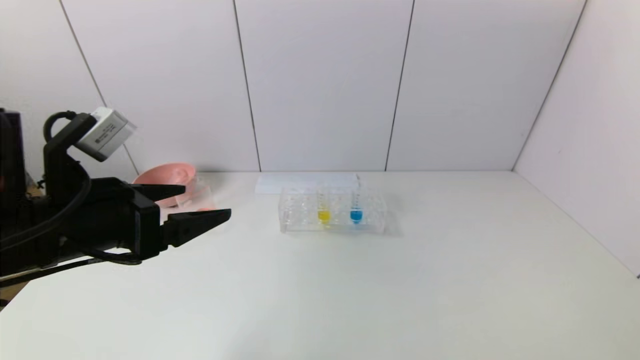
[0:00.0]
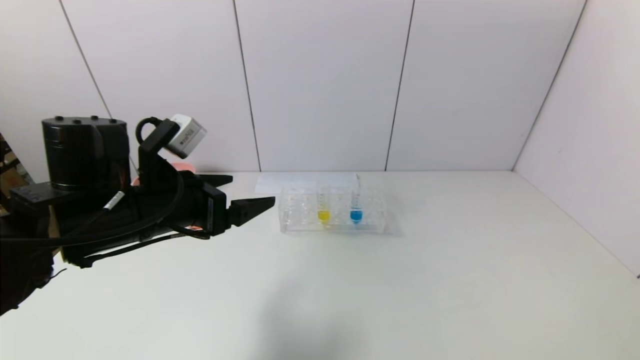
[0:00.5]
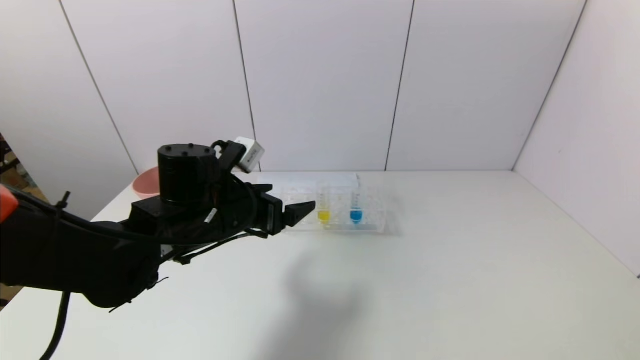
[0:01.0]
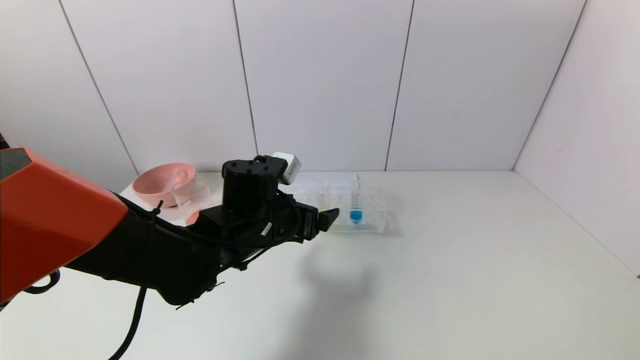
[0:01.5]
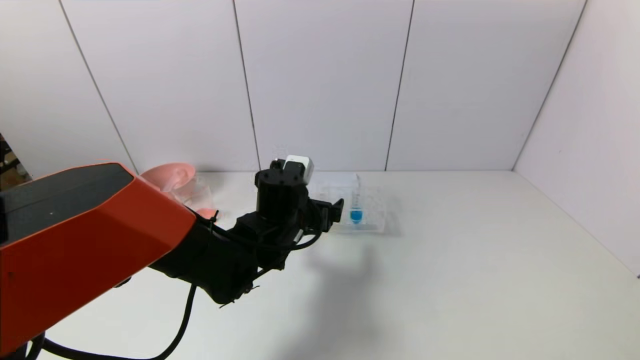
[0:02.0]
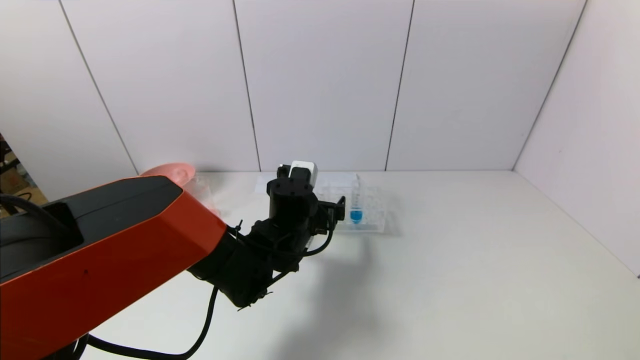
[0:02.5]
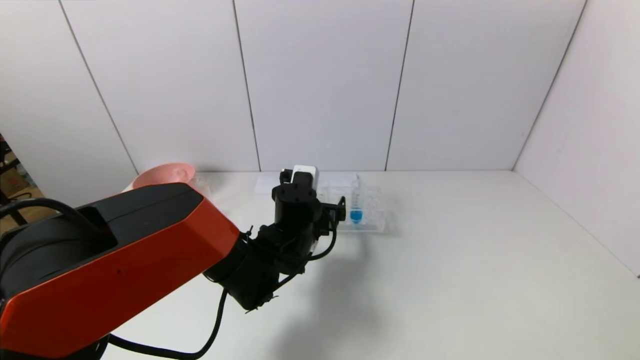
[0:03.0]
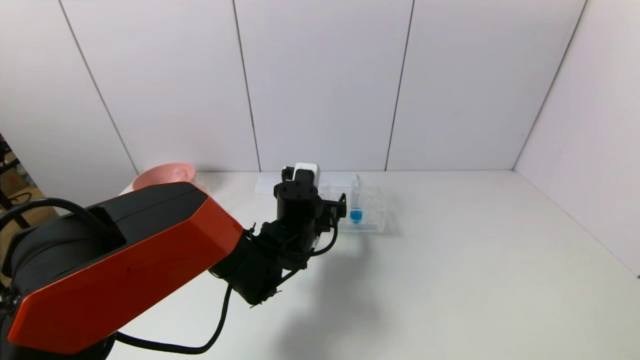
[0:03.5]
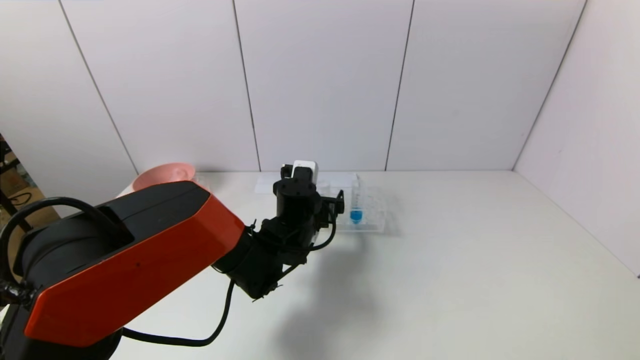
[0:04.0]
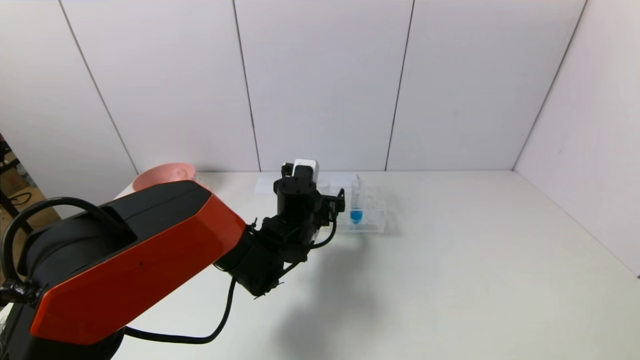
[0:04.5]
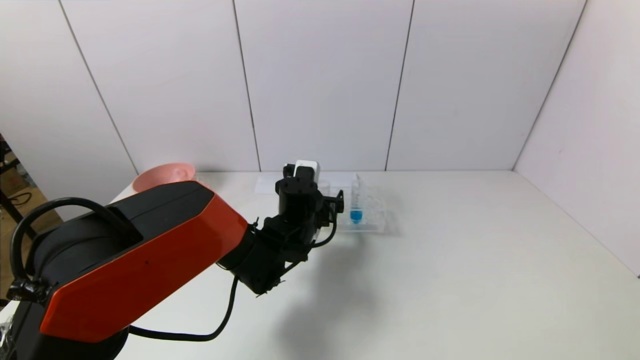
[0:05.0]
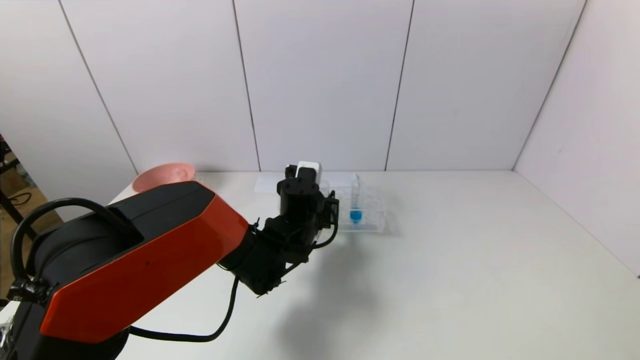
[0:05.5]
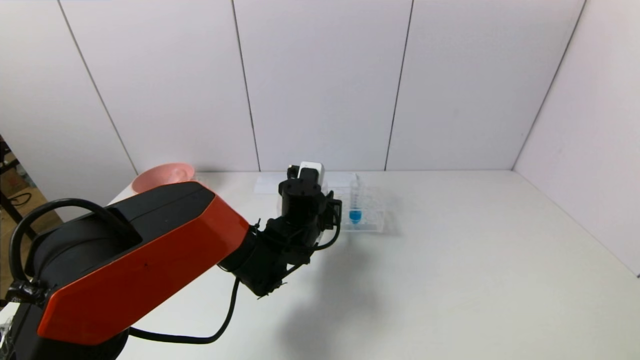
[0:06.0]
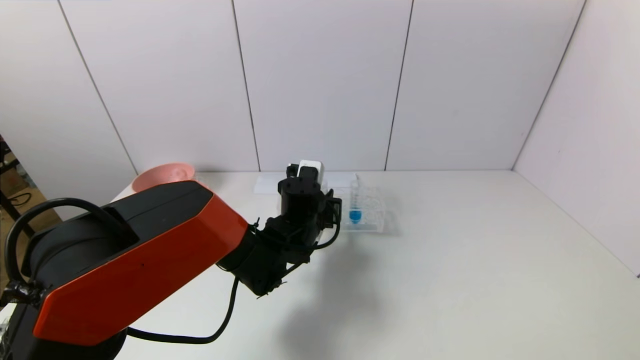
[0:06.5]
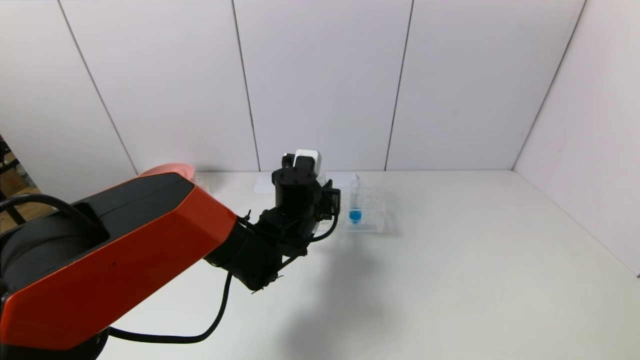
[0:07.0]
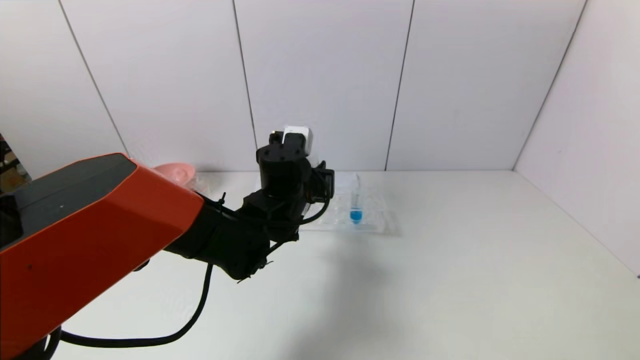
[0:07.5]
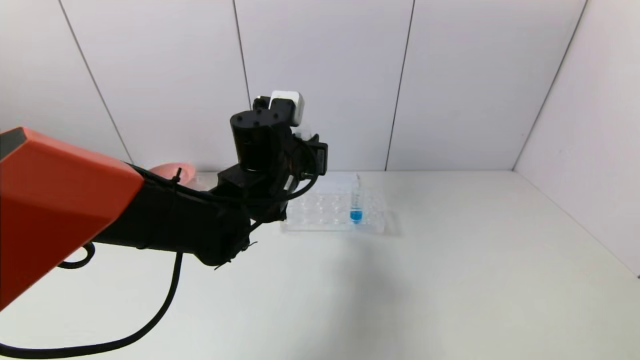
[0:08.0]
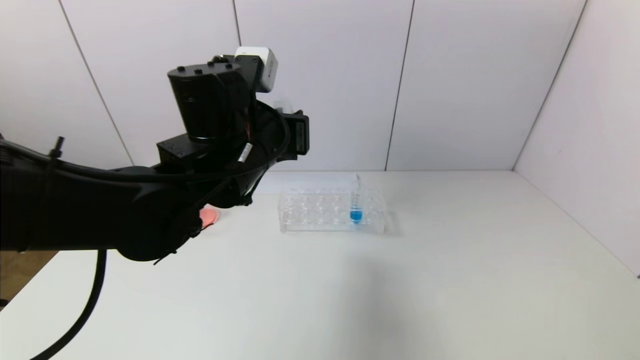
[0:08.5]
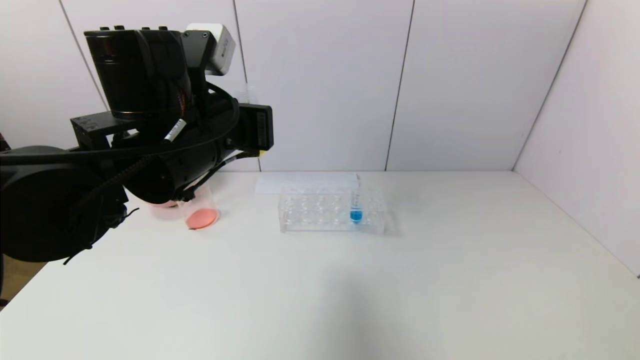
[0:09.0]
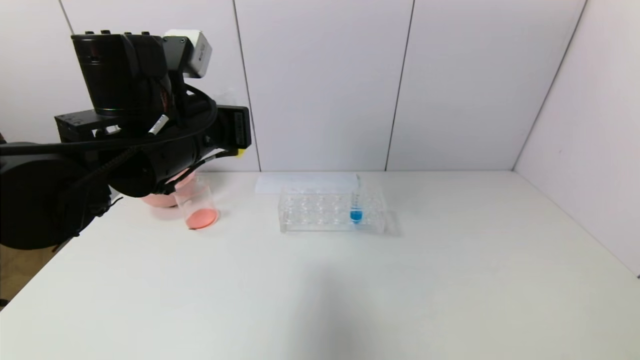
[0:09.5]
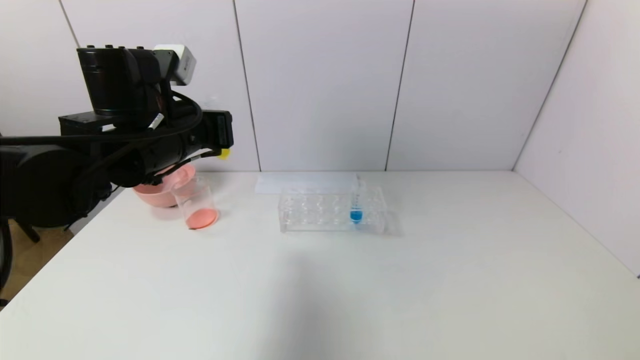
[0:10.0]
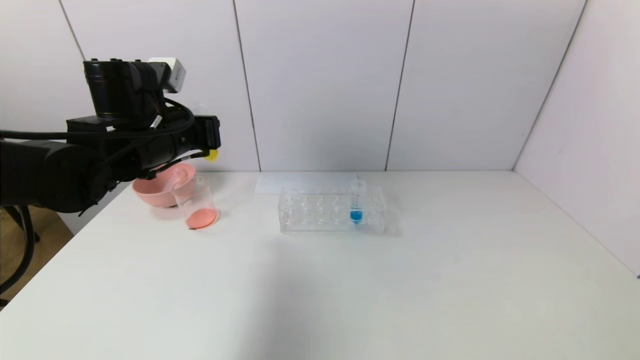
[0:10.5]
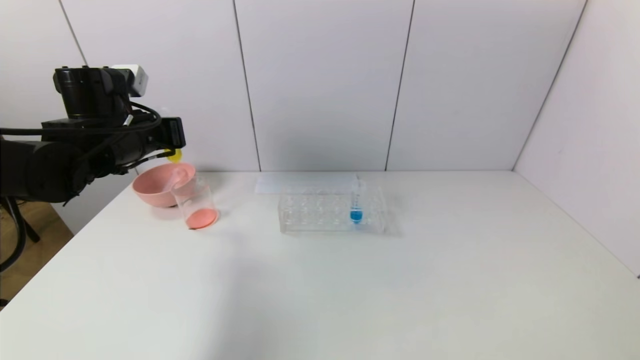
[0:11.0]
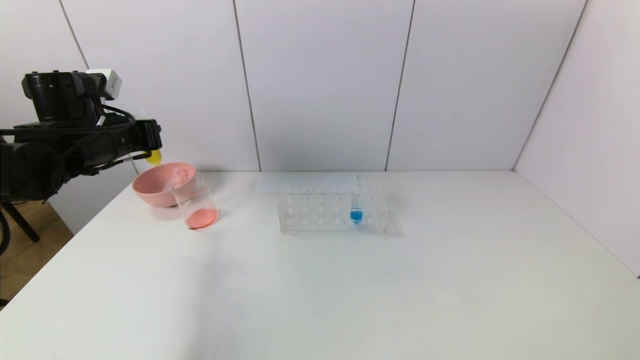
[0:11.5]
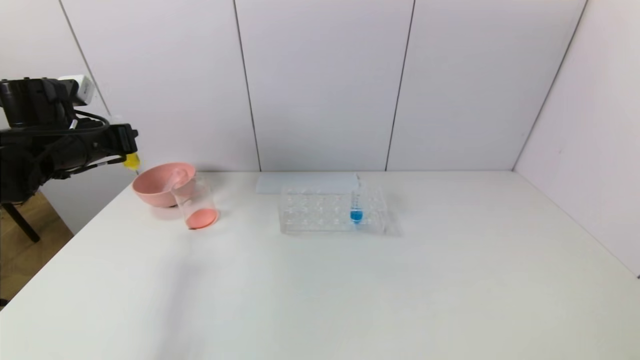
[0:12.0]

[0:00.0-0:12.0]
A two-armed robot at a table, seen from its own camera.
Task of the whole recording: pick up the test tube with yellow pigment and the test tube with red pigment by grippers and pour them into the beaker.
Step, 0:00.0 to 0:05.5: Grasp the yellow reagent with the left gripper.
0:00.0 to 0:02.0: The left gripper goes about 25 cm to the right, forward and downward.
0:02.0 to 0:04.0: The left gripper changes place by roughly 5 cm.
0:04.0 to 0:06.0: The left gripper closes.
0:06.0 to 0:08.0: The left gripper is displaced upward by some 15 cm.
0:08.0 to 0:10.0: The left gripper shifts some 15 cm to the left and upward.
0:10.0 to 0:12.0: The left gripper is displaced to the left by some 20 cm.

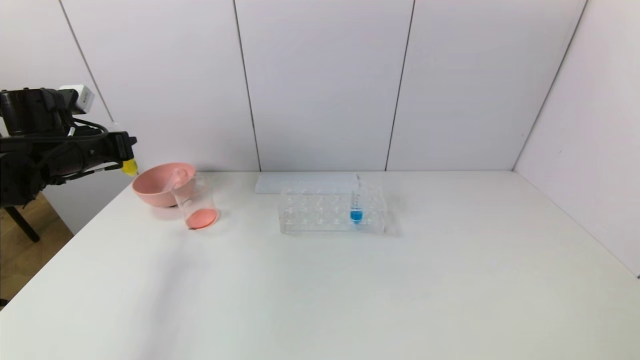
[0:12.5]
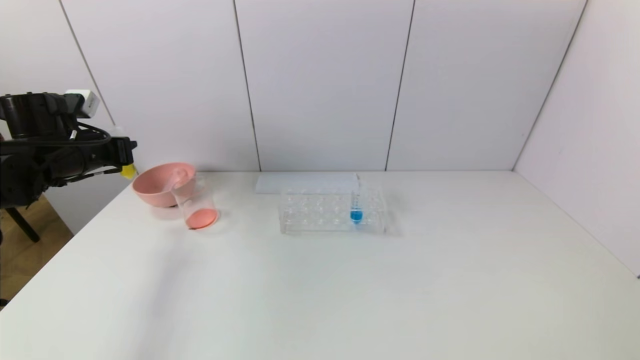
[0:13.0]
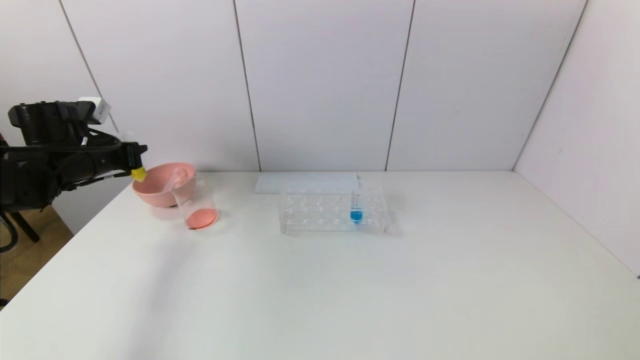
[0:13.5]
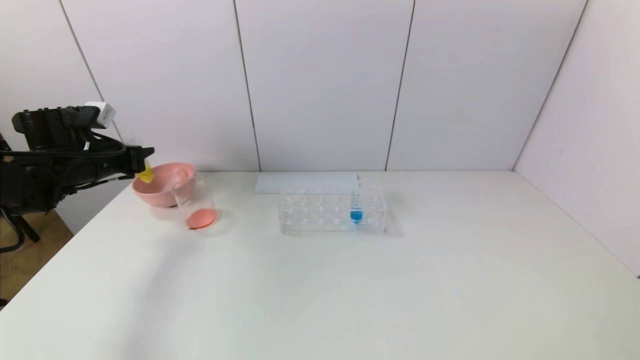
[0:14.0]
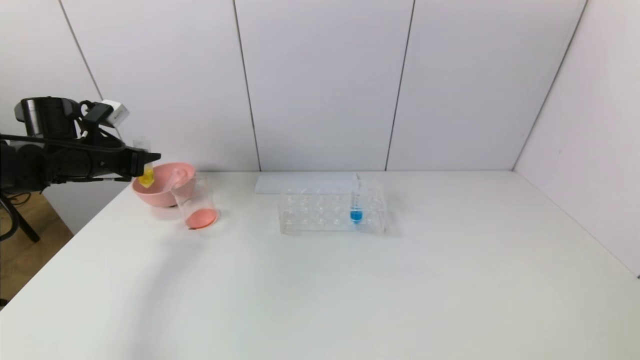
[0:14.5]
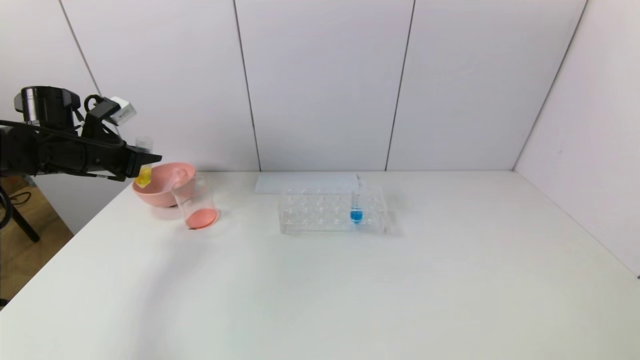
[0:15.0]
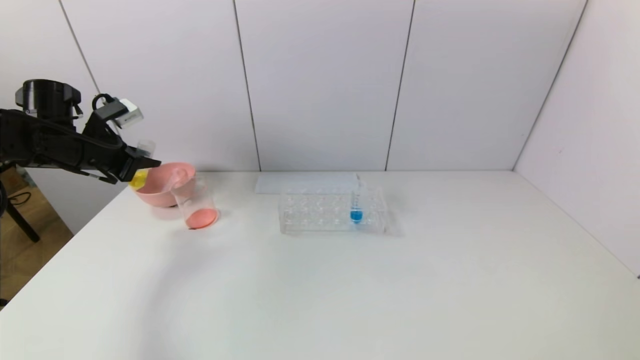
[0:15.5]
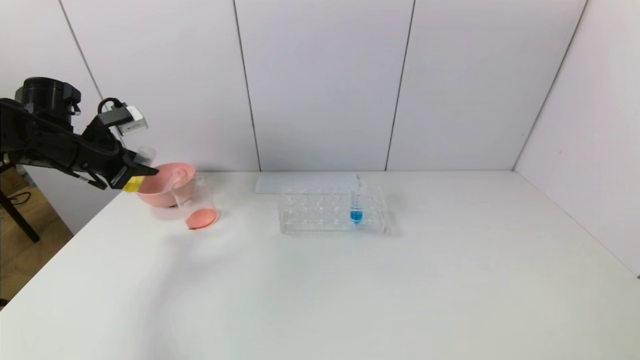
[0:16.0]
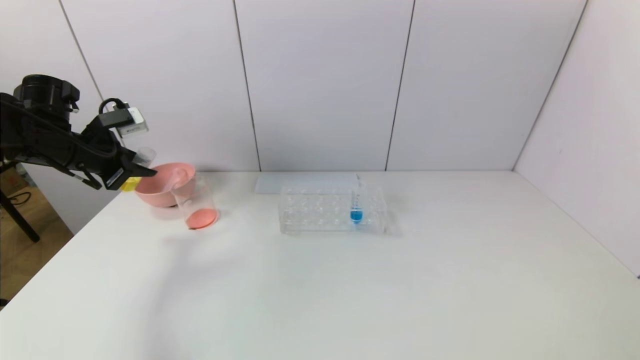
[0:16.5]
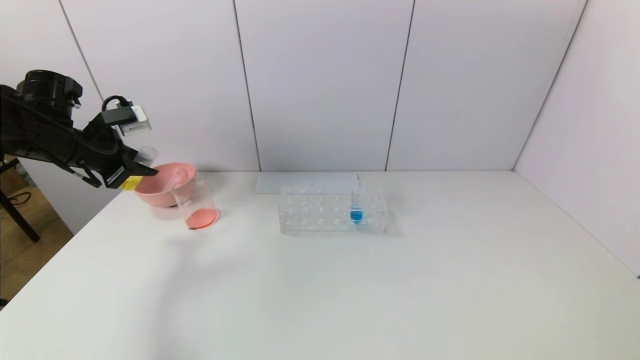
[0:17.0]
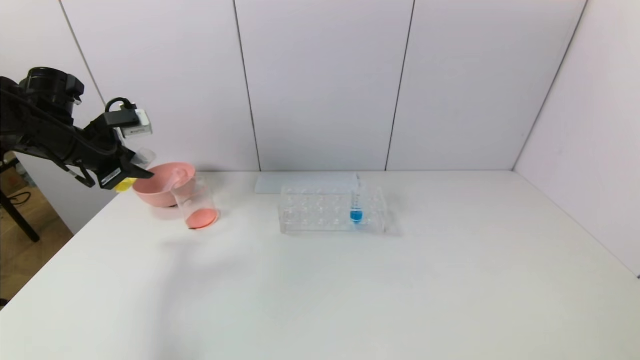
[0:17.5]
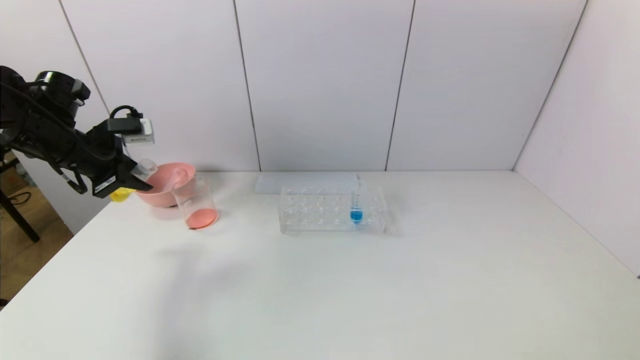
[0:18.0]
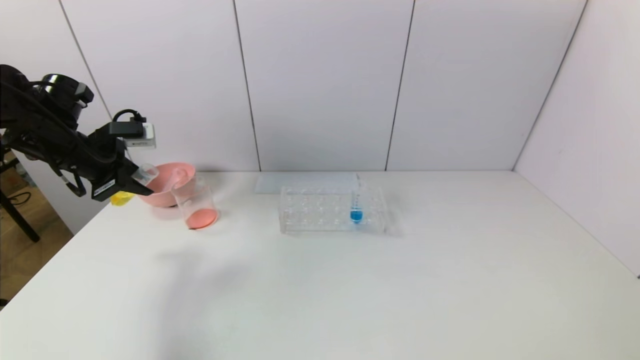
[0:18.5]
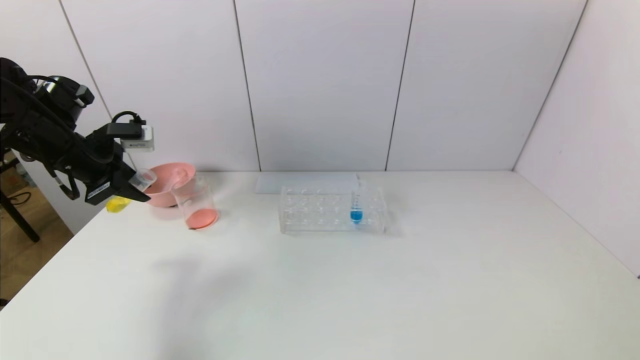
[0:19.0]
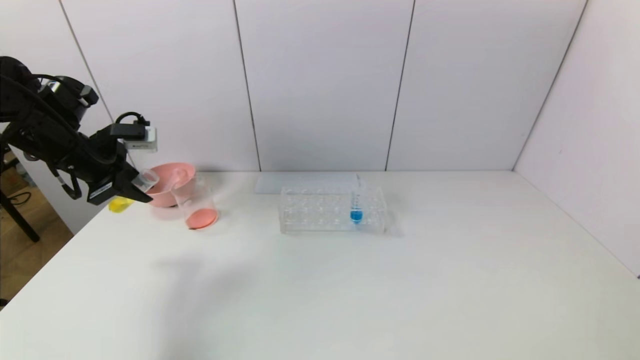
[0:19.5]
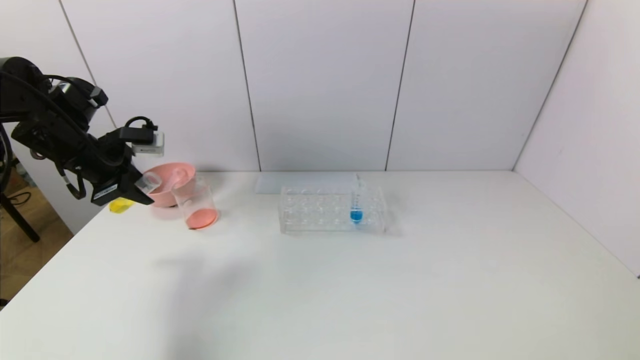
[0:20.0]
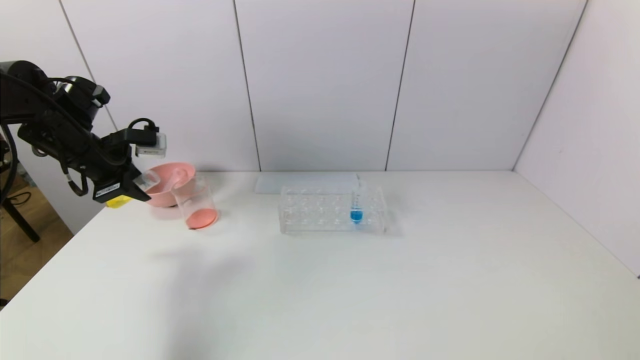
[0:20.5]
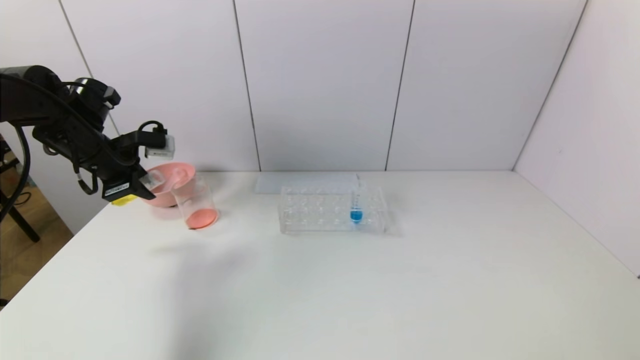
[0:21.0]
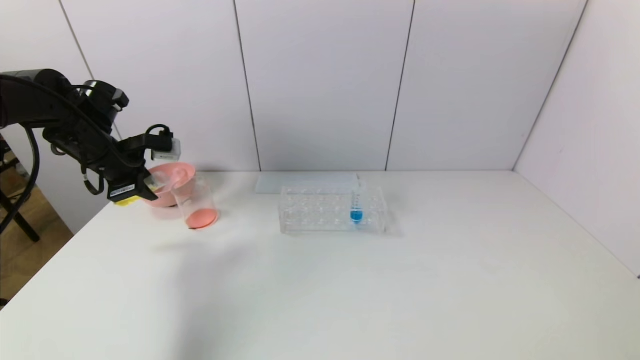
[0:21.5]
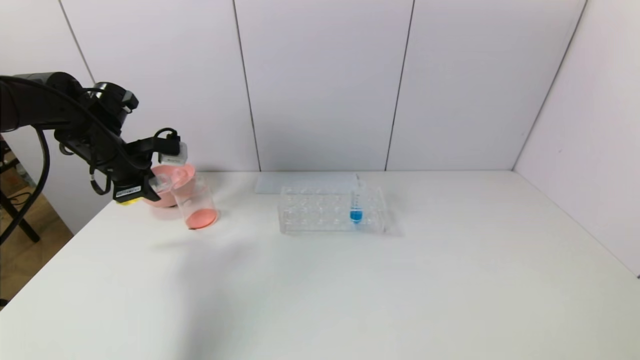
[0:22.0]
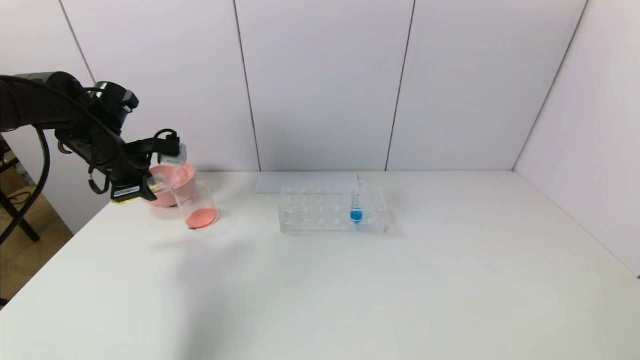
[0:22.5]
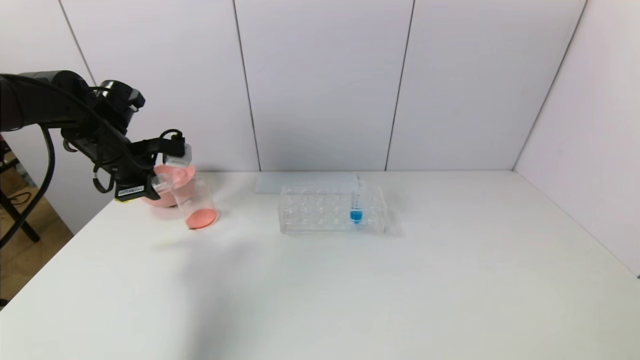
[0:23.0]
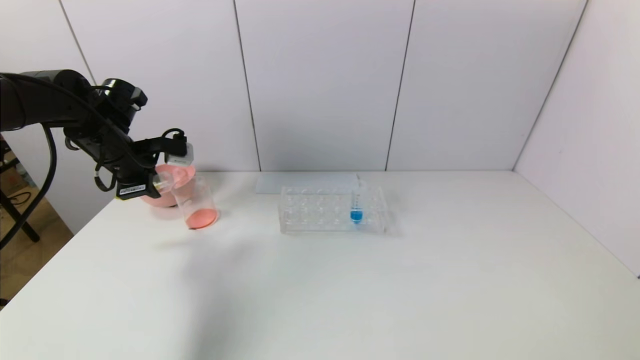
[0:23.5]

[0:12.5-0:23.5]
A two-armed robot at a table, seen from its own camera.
Task of the whole recording: pick up the test tube with yellow pigment and the test tube with red pigment by grippers and pour them into the beaker.
0:16.0 to 0:18.0: The grippers move only a little.
0:18.0 to 0:21.5: The grippers make only small movements.
0:21.5 to 0:23.5: The grippers move only a little.
